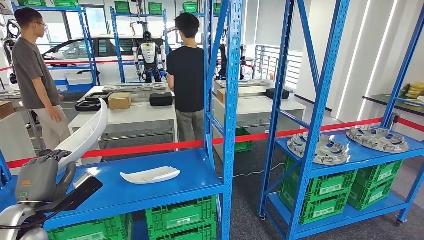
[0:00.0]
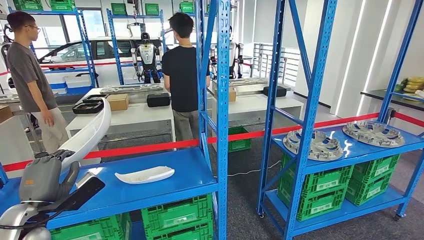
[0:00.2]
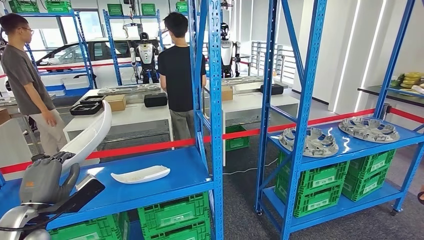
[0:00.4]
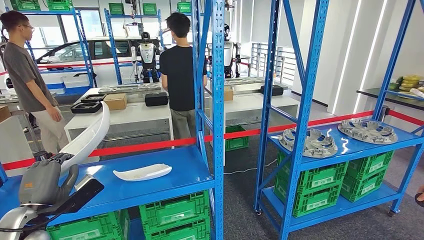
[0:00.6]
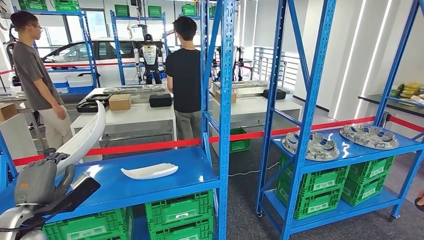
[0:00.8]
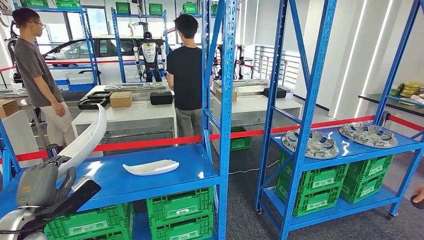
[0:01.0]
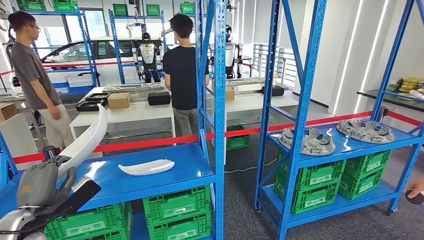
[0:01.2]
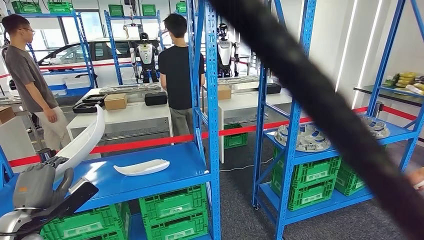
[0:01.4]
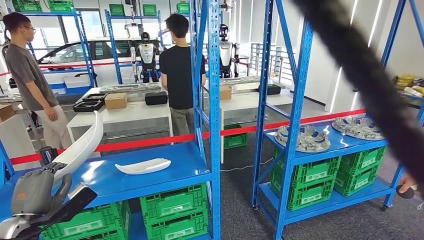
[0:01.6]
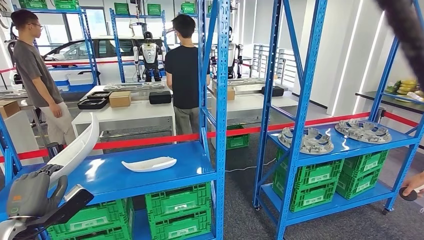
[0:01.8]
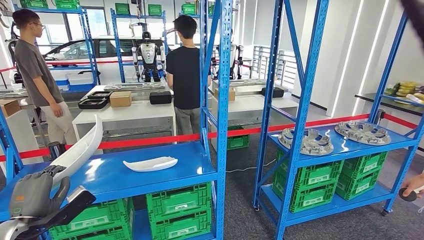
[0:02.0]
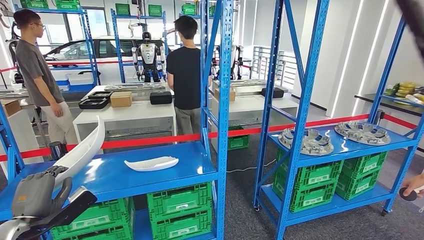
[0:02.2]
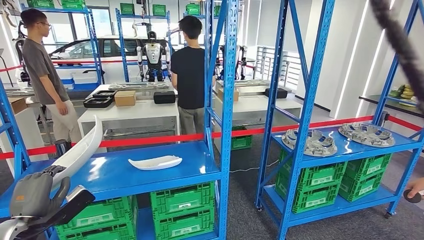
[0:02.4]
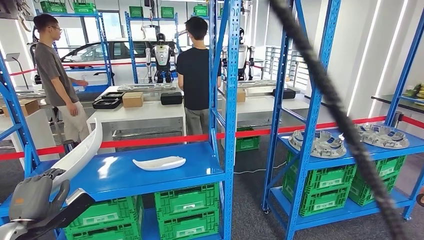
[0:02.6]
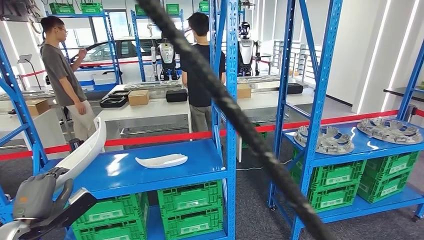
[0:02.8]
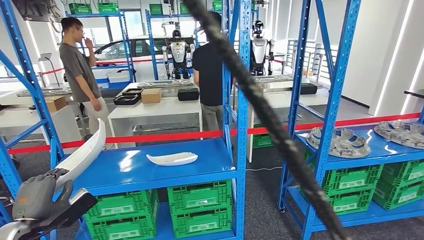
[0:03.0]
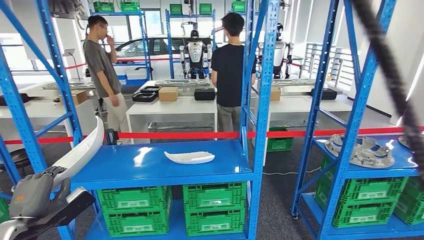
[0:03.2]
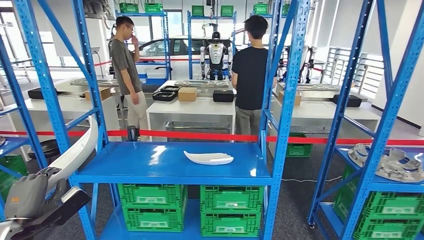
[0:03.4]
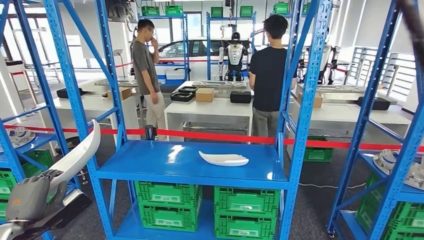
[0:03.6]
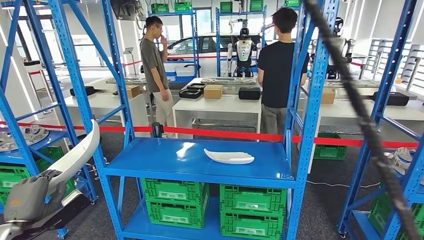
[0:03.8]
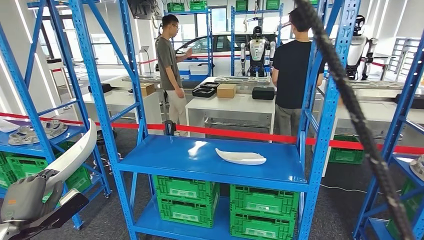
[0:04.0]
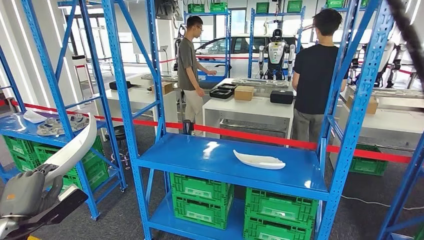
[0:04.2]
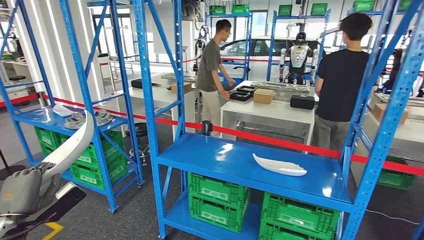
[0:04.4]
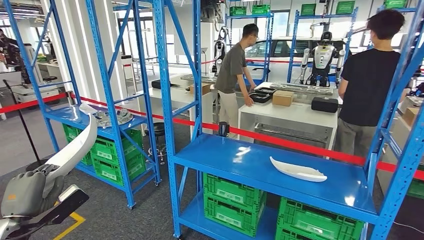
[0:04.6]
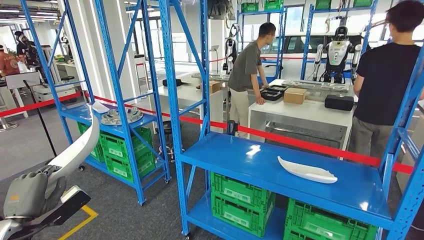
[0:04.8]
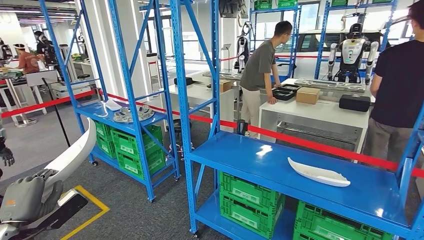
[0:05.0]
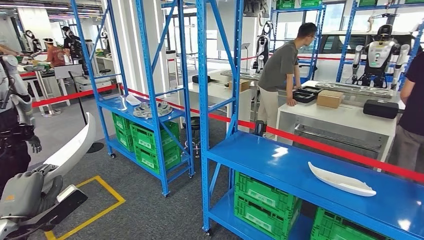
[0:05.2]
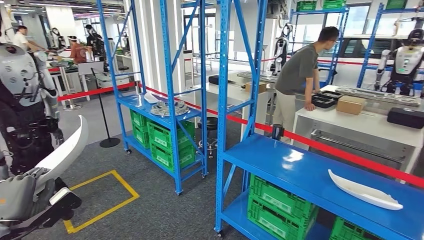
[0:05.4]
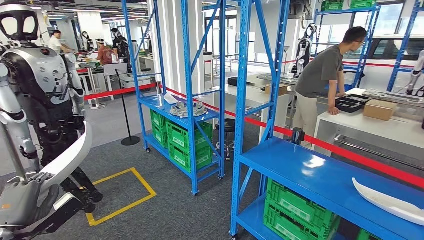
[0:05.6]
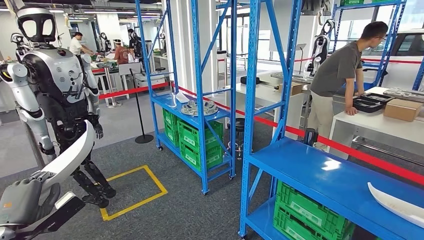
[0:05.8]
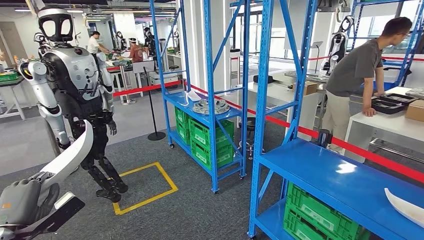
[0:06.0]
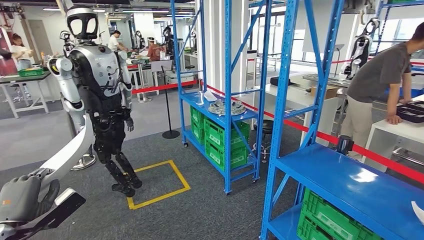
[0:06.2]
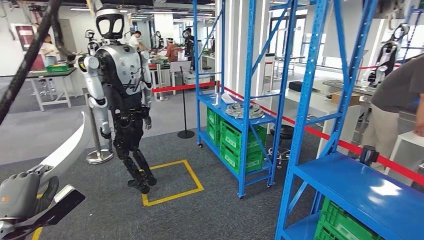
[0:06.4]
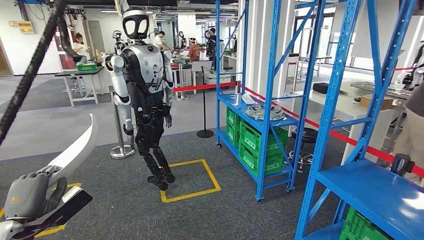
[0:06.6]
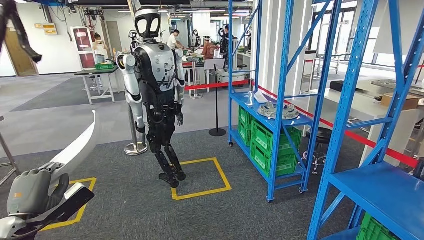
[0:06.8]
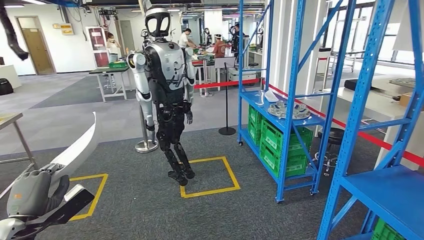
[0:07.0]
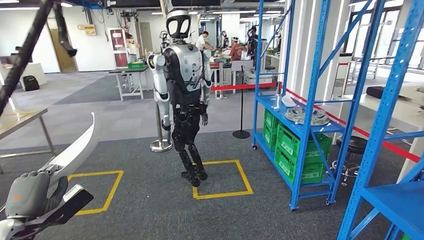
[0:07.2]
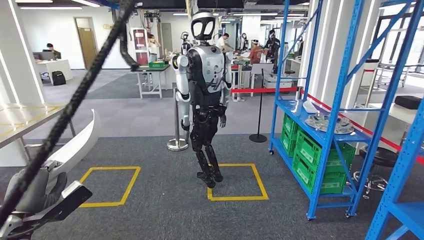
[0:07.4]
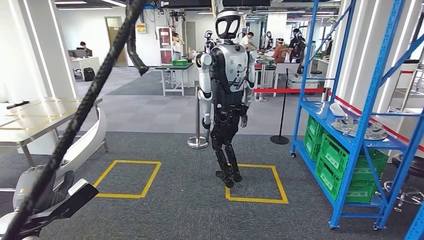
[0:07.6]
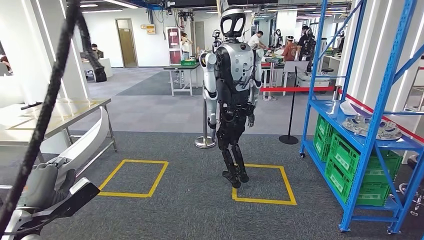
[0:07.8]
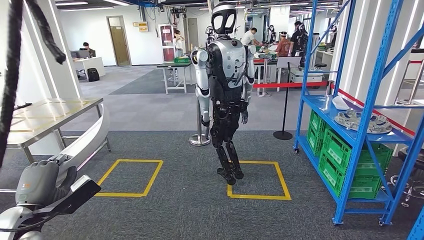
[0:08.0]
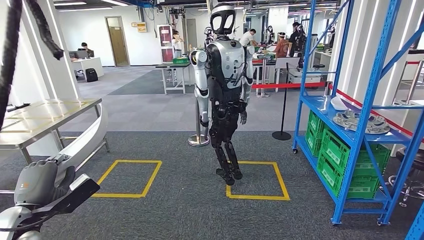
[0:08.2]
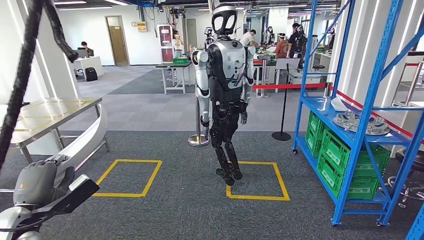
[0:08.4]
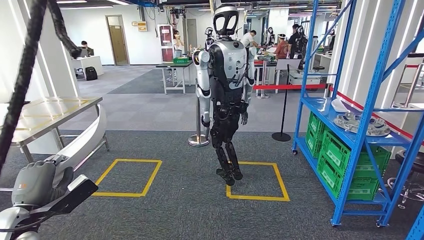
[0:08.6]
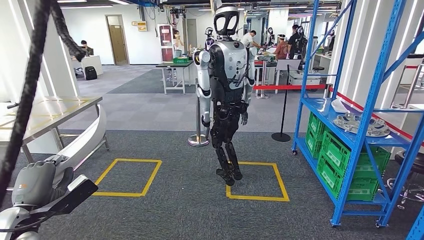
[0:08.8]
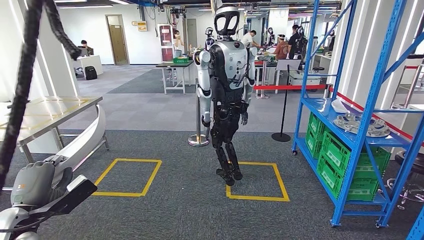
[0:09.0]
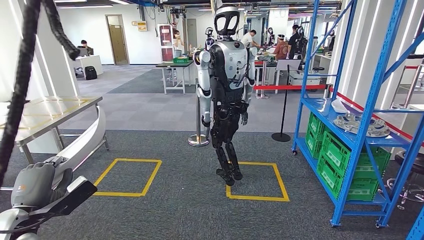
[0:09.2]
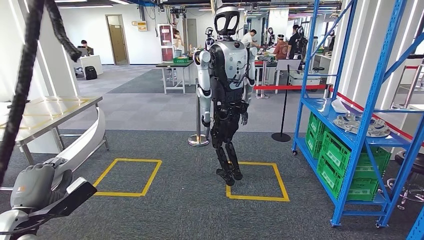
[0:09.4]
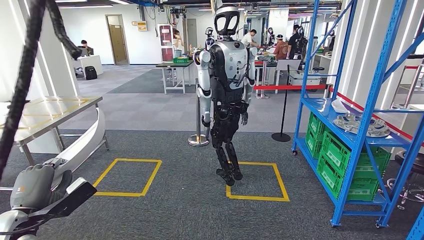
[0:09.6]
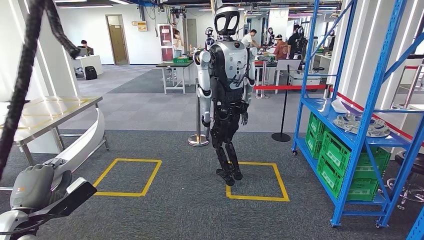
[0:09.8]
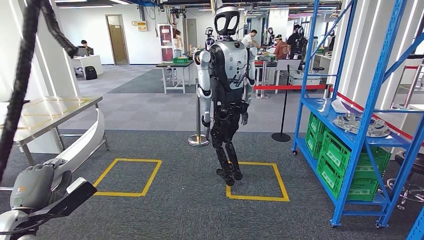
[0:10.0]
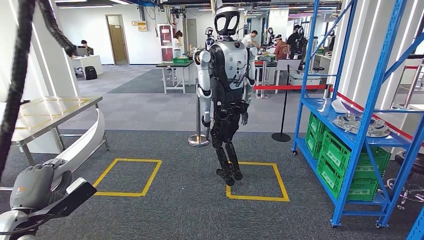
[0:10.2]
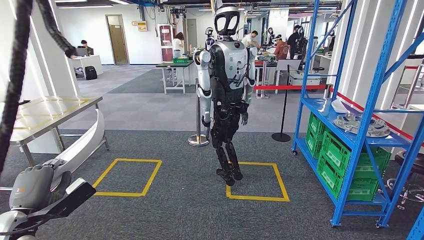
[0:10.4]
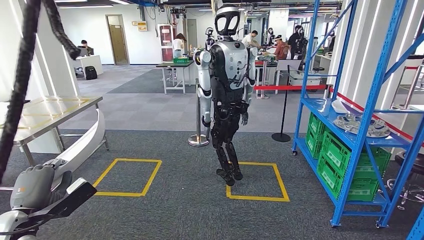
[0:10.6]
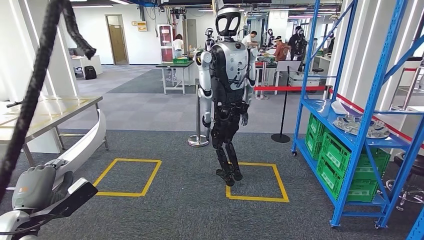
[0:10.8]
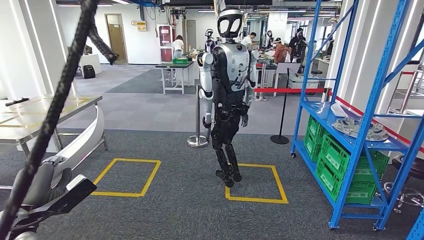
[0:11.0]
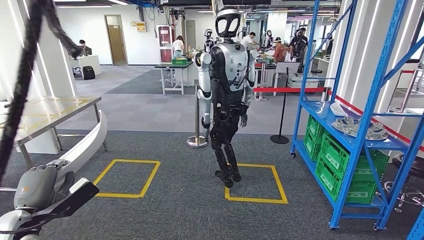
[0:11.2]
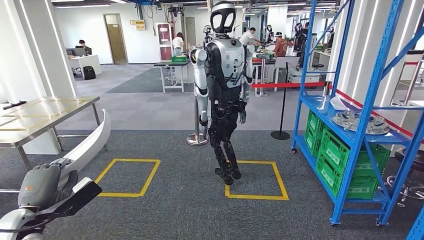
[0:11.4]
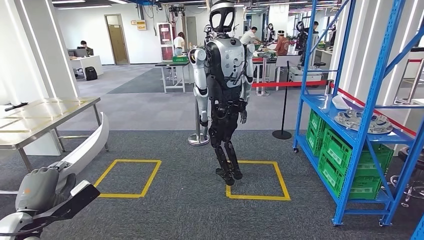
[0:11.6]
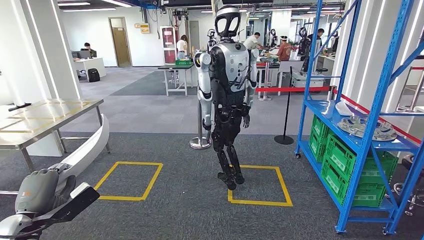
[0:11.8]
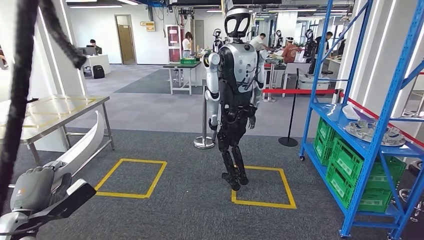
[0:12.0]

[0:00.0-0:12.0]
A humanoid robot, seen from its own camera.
0:09.0 to 0:10.4: Both hands stay about where they are.

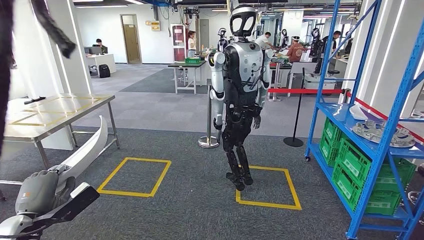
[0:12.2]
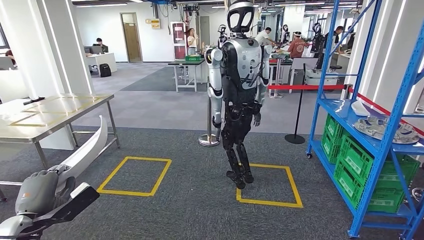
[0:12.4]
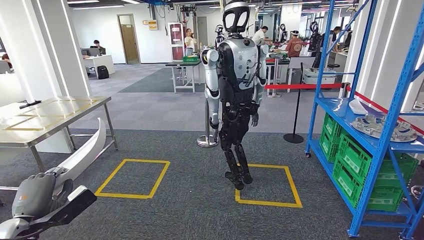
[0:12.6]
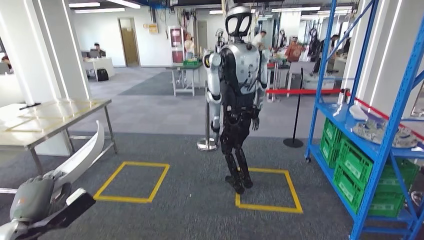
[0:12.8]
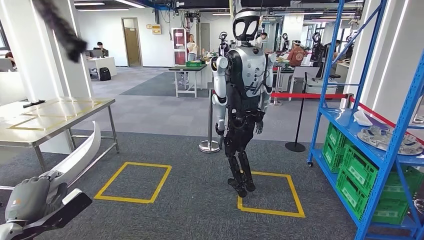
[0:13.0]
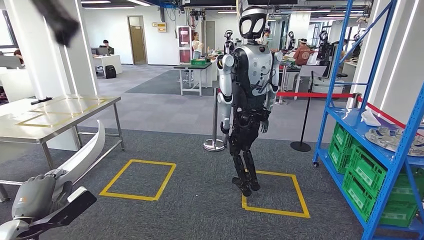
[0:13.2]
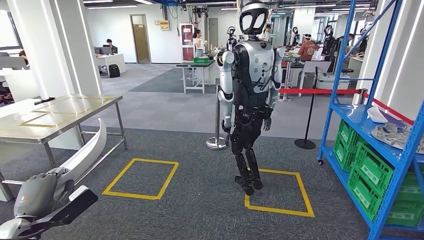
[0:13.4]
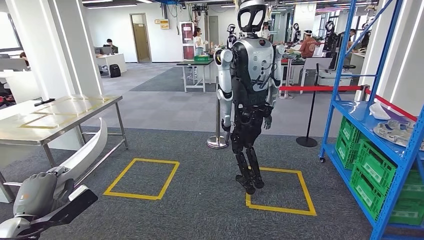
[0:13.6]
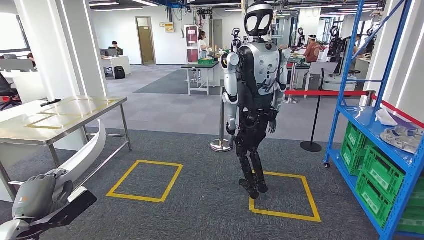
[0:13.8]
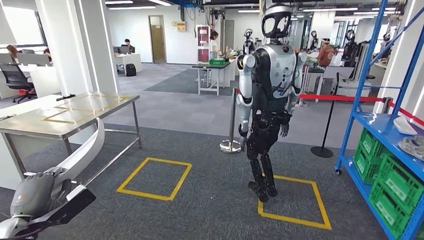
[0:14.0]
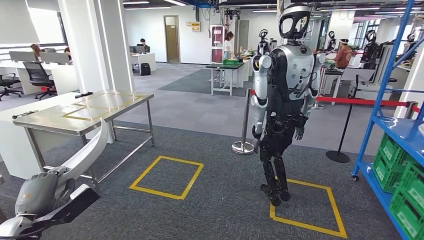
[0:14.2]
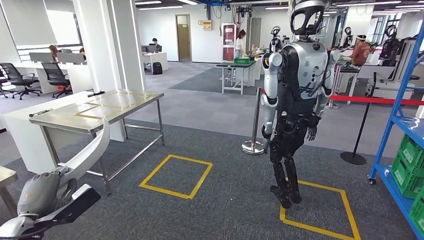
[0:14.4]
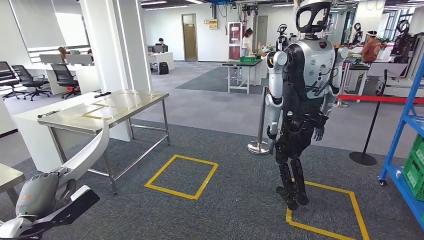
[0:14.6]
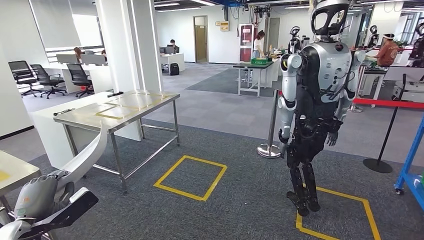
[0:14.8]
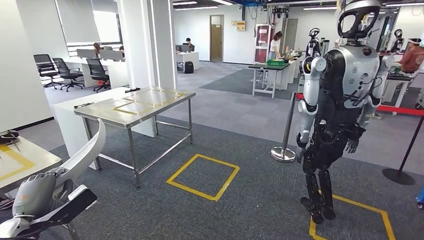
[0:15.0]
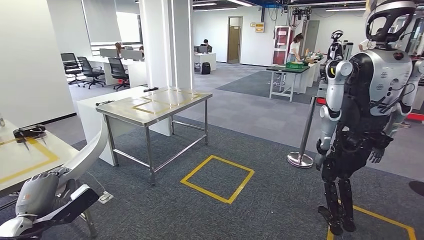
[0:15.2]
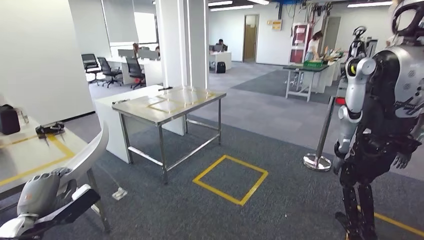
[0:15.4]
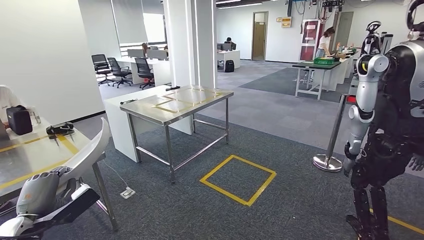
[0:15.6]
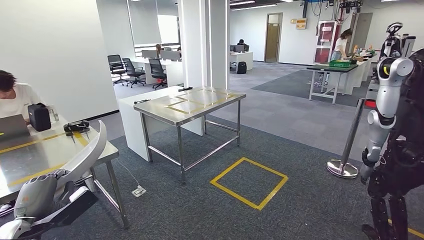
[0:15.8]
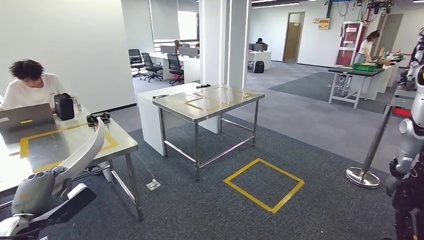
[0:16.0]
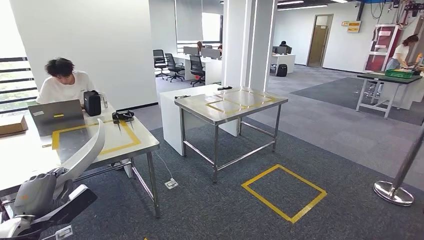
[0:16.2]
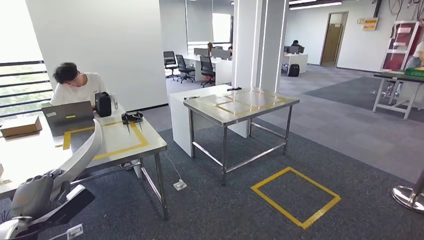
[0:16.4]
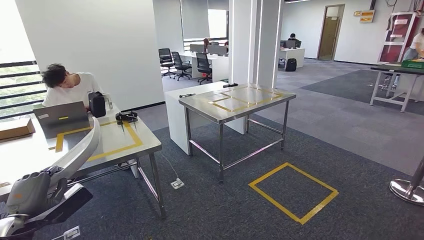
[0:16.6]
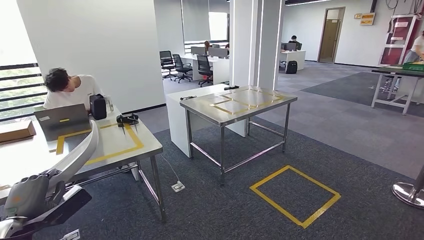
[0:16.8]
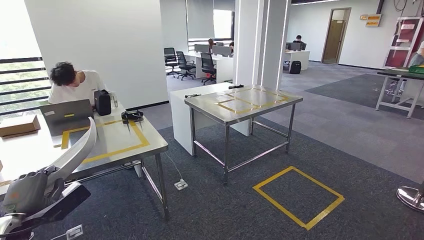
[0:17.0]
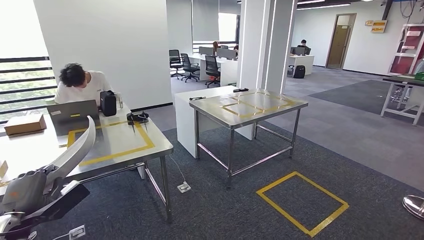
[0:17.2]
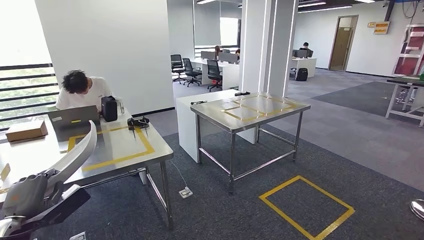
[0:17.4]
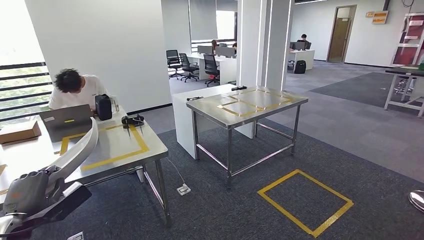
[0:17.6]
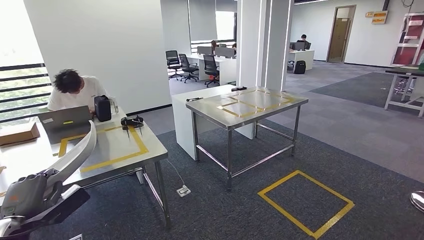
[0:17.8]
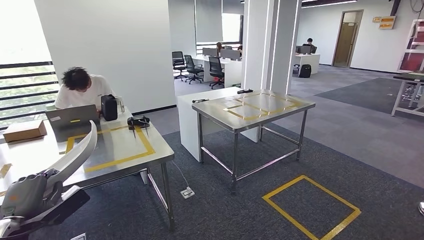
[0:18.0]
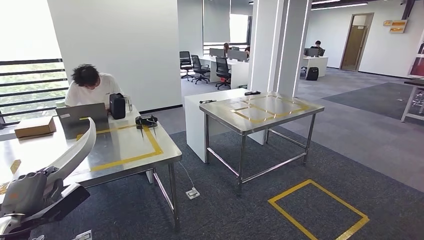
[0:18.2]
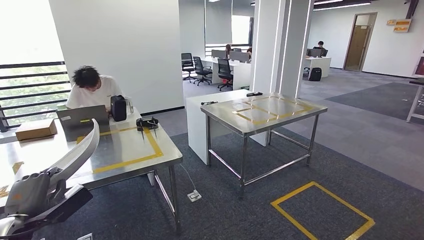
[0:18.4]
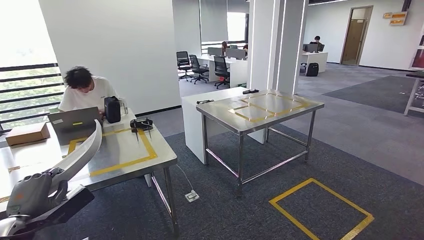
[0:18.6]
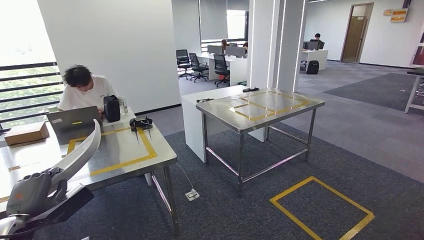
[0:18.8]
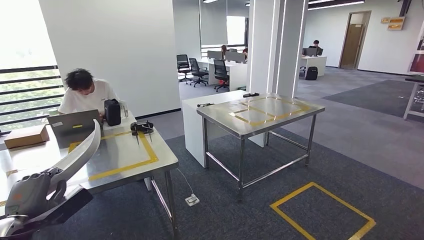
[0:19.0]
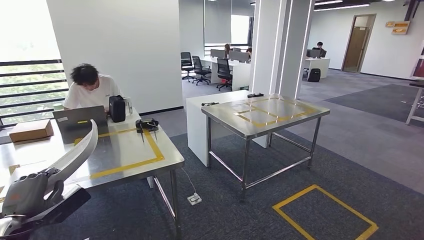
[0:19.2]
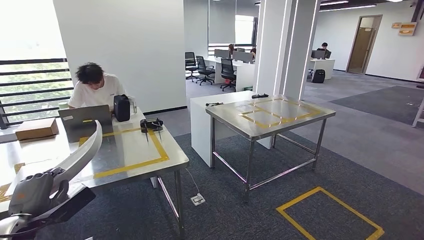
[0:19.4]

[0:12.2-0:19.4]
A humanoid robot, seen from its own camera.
Step, 0:12.2 to 0:19.4: Move the small parts to the workbench.
